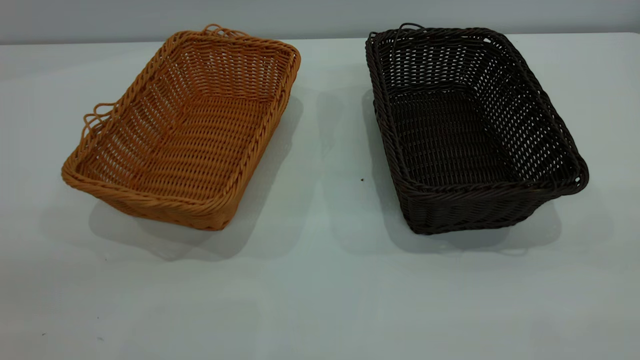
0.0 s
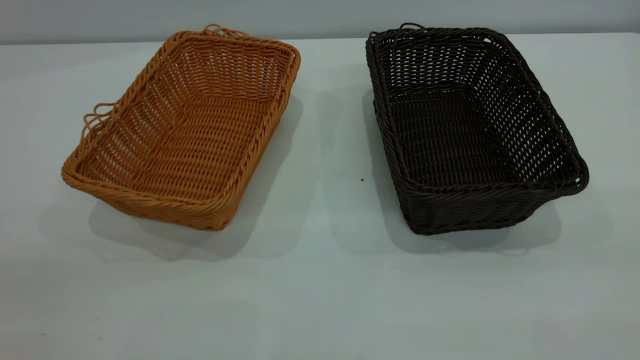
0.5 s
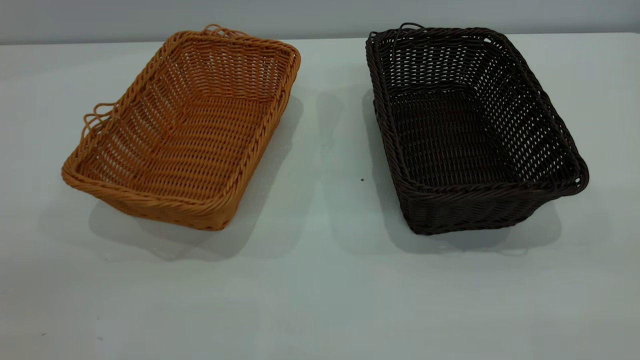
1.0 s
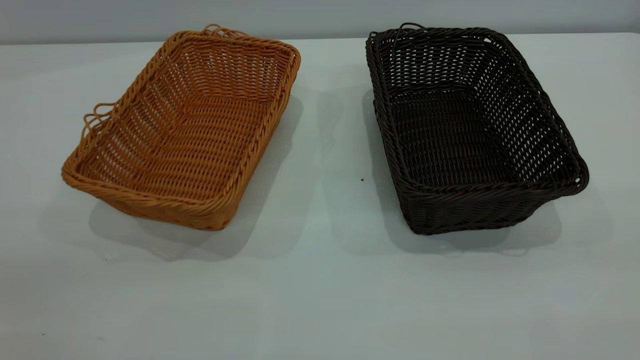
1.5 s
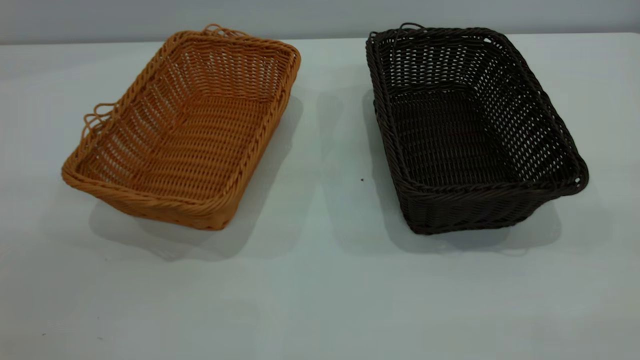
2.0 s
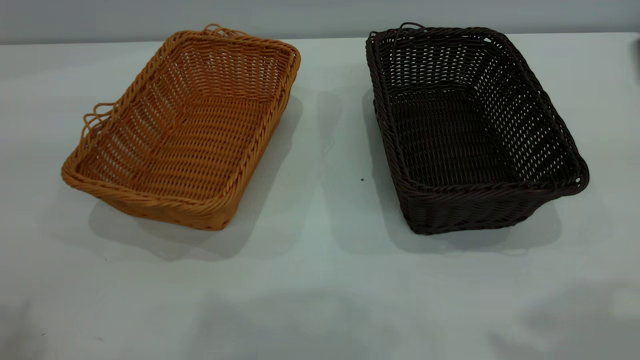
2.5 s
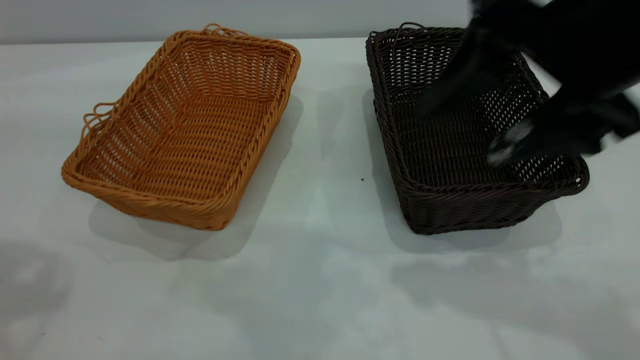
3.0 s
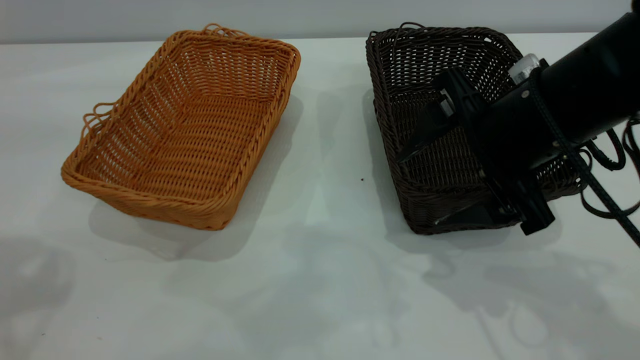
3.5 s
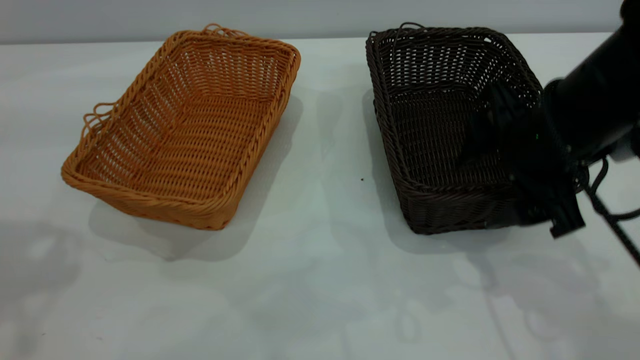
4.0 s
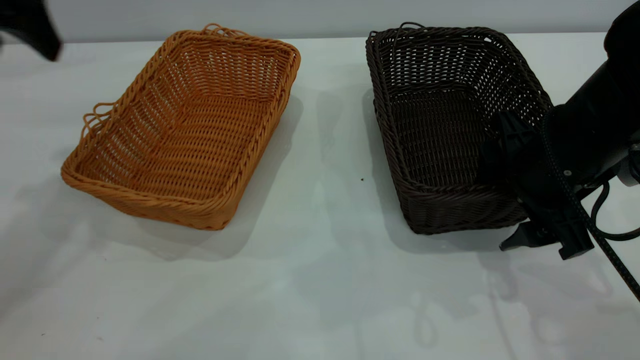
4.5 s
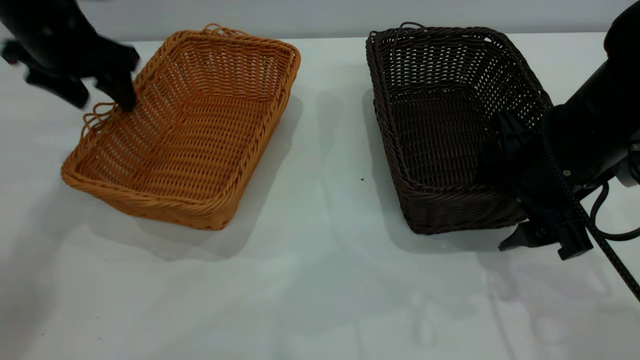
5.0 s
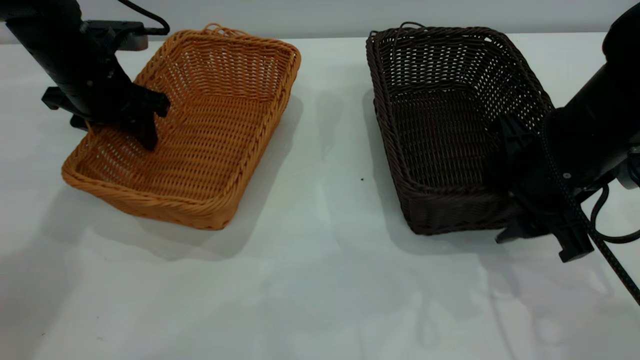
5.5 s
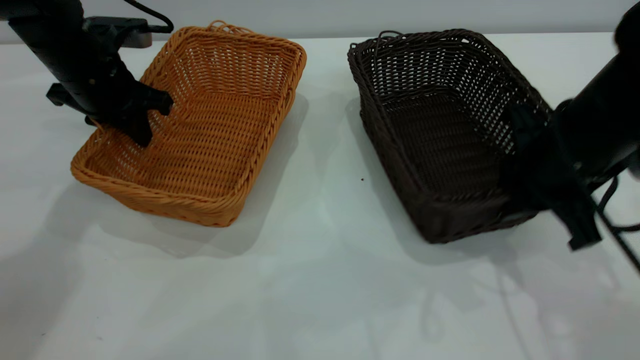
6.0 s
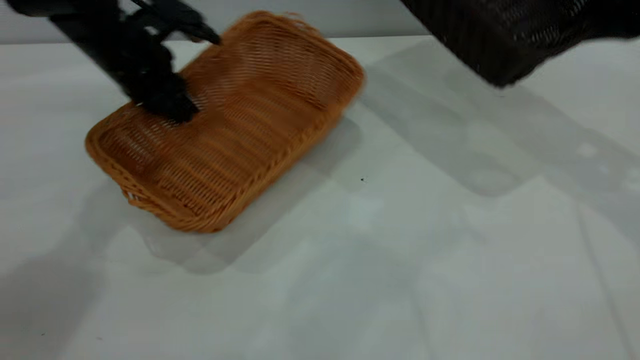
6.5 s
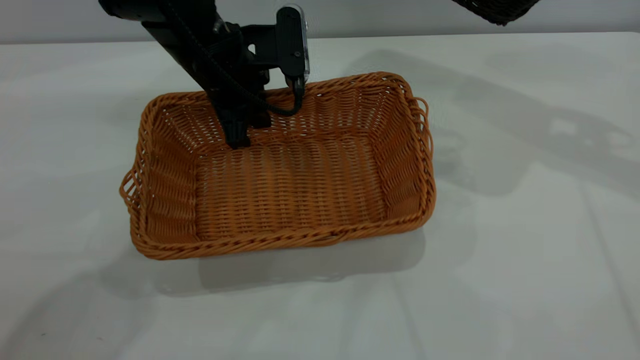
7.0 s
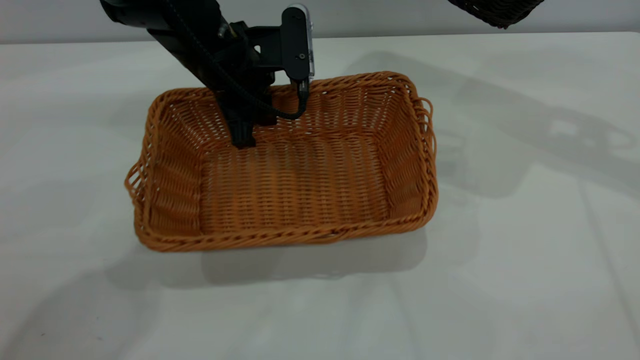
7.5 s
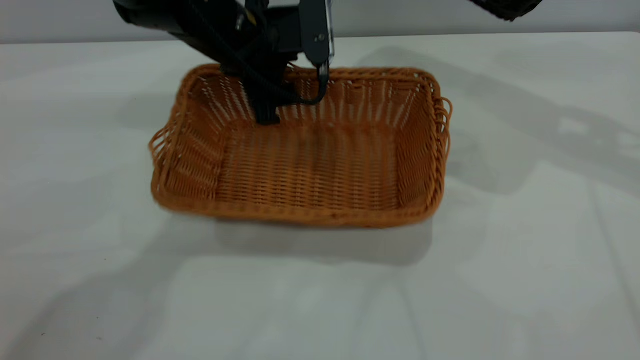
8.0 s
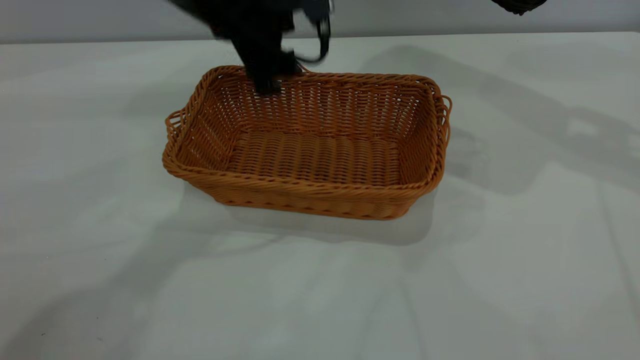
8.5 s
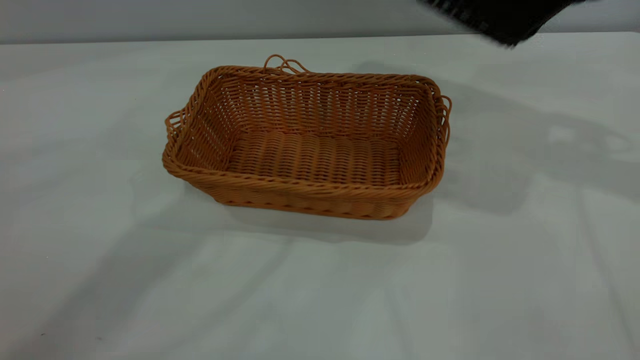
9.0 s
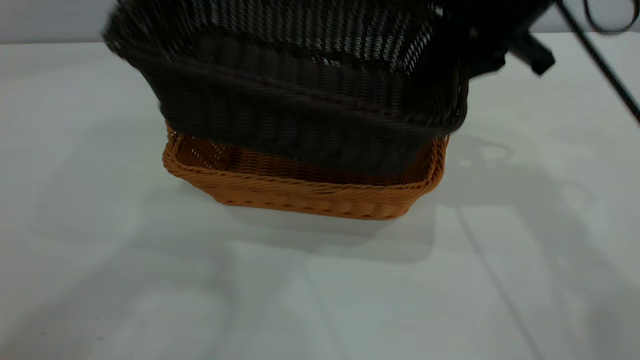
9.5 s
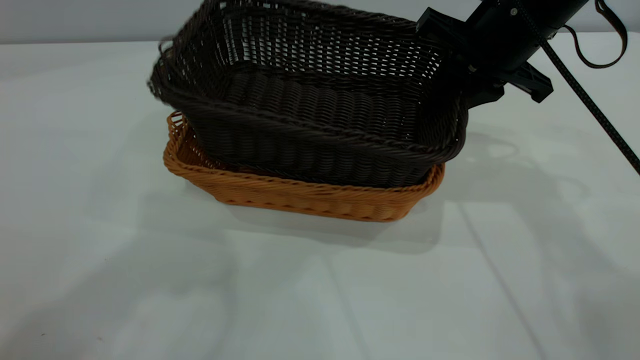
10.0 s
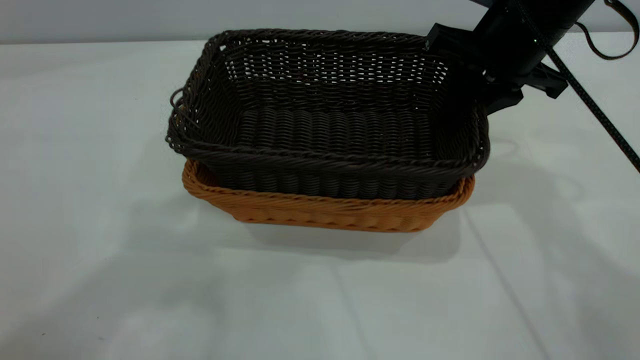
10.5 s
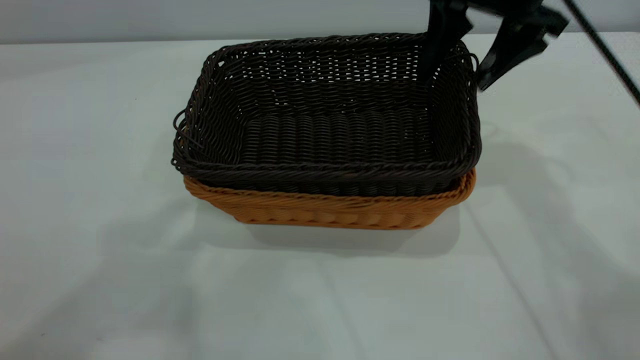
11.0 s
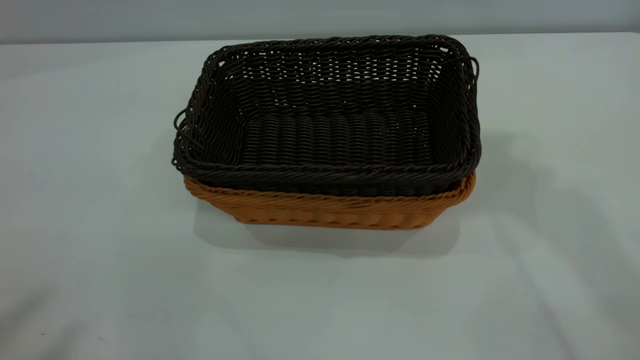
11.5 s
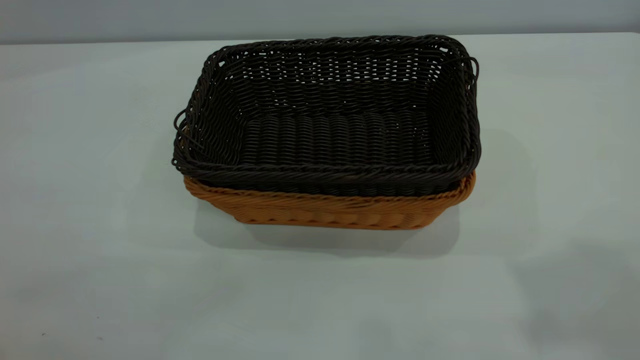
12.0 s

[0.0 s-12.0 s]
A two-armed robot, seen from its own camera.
Task of the whole recording: the left gripper grasp the brown basket and place it in the center of the table, the right gripper grasp the black basket and place it inside the brown one.
Step, 0.0 to 6.0 s: Pick up the light basket with the right gripper.
Step, 6.5 to 8.5 s: Place the light-colored basket in the center.
Step, 9.0 to 11.0 s: Place the dark basket on top of the light basket.
2.0 to 4.0 s: The right gripper shifts approximately 35 cm forward and downward.
4.0 to 6.0 s: The left gripper heads downward and forward, covering some 30 cm, and closes up. The right gripper closes.
6.0 to 8.0 s: The right gripper shifts about 25 cm upward, forward and to the right. The left gripper goes about 15 cm to the right, and opens.
8.0 to 10.0 s: The left gripper is displaced upward and backward by roughly 40 cm. Meanwhile the right gripper travels to the left and downward by approximately 20 cm.
10.0 to 12.0 s: The right gripper travels upward and backward by about 40 cm, and opens its fingers. Meanwhile the left gripper travels backward and to the left by approximately 20 cm.
